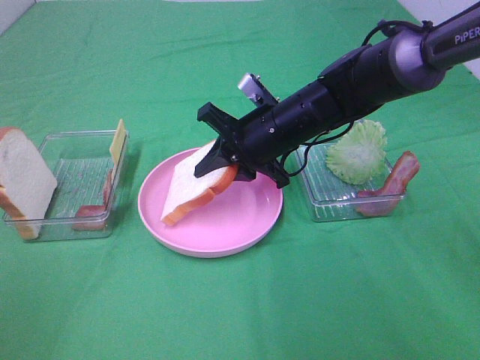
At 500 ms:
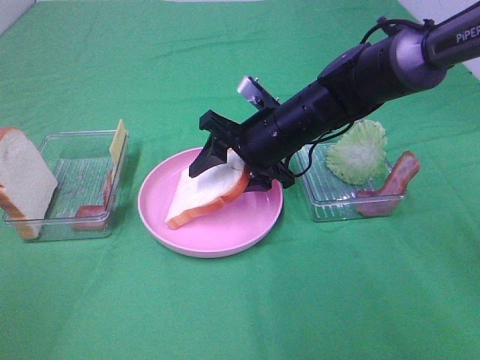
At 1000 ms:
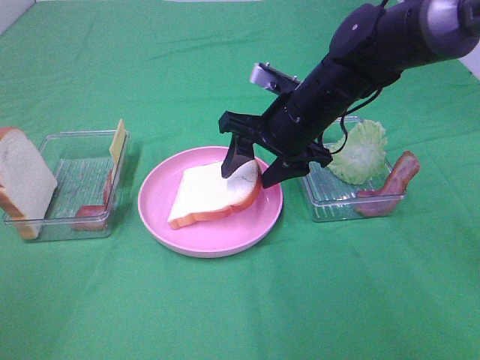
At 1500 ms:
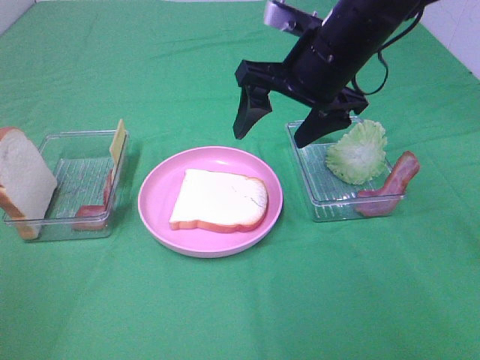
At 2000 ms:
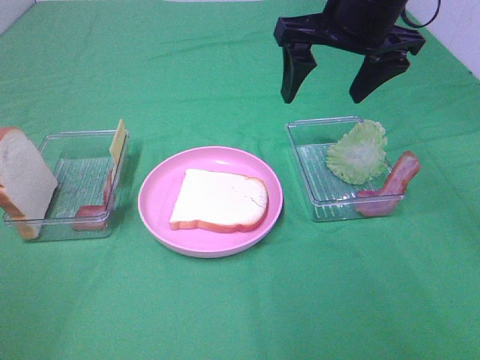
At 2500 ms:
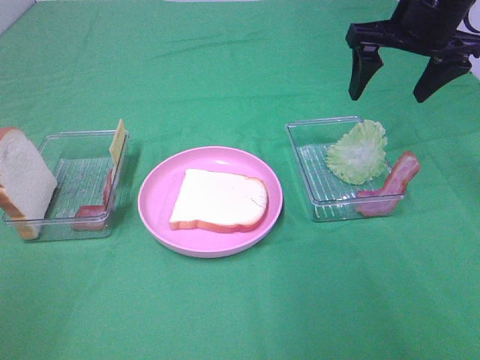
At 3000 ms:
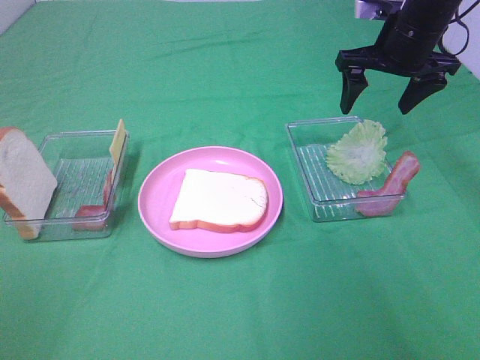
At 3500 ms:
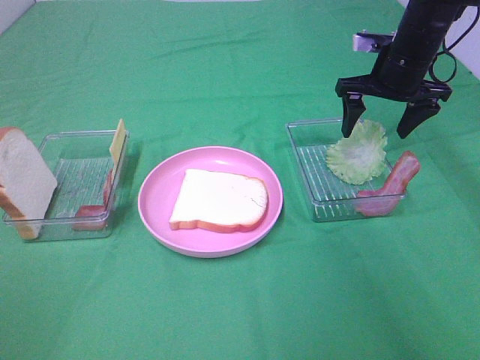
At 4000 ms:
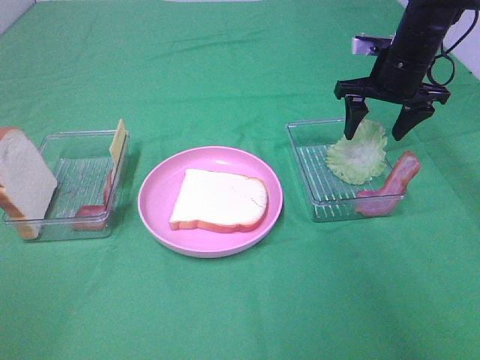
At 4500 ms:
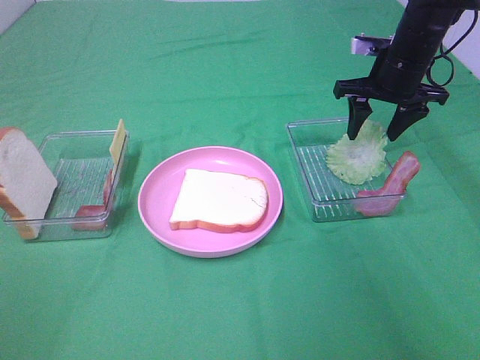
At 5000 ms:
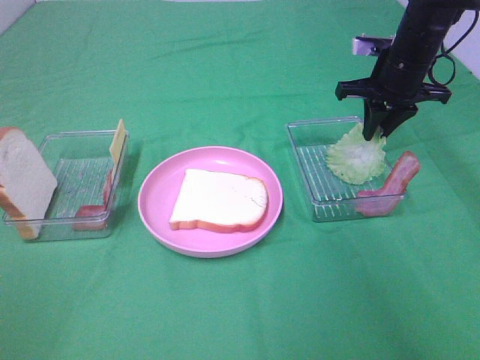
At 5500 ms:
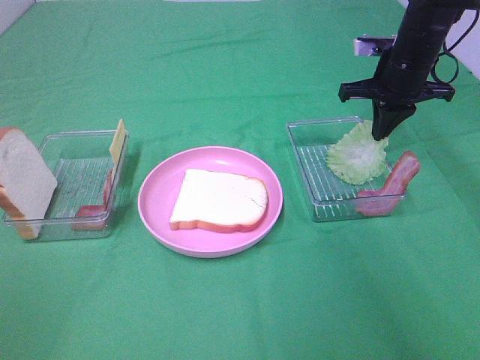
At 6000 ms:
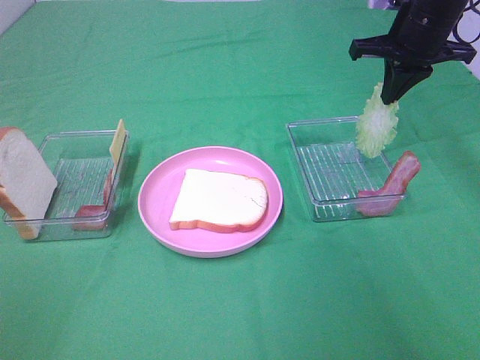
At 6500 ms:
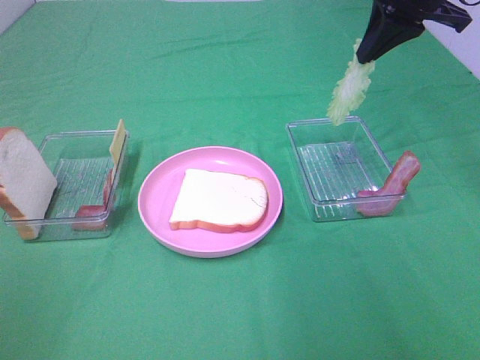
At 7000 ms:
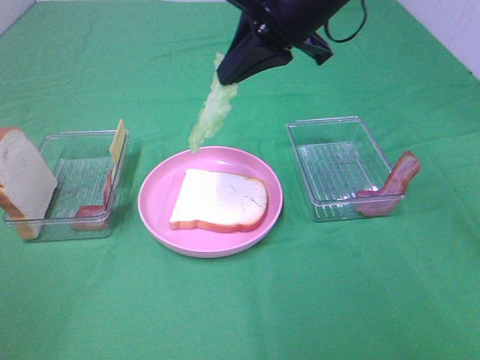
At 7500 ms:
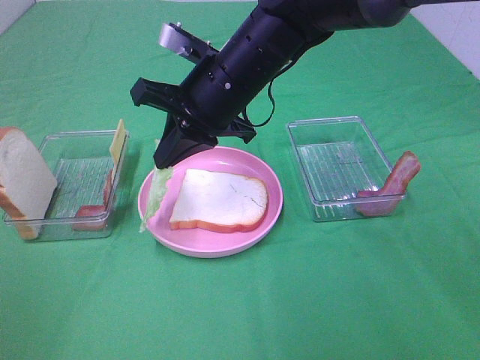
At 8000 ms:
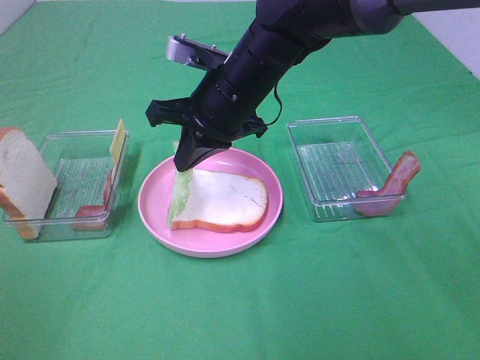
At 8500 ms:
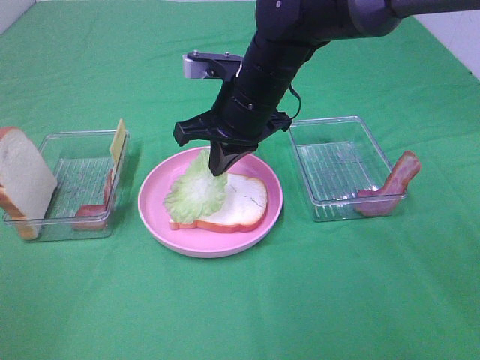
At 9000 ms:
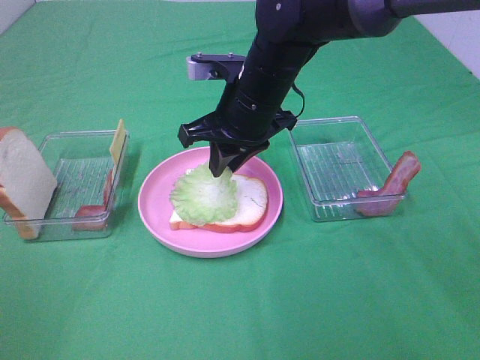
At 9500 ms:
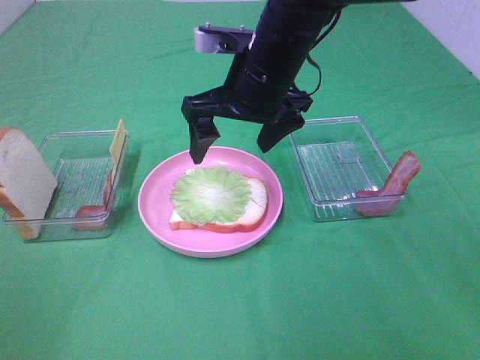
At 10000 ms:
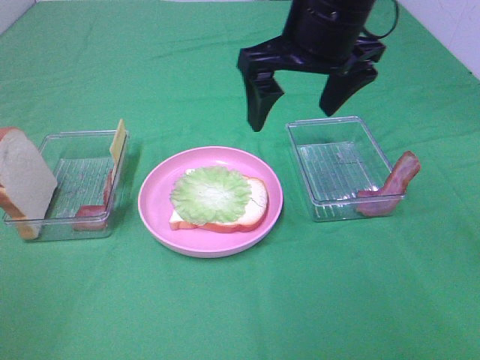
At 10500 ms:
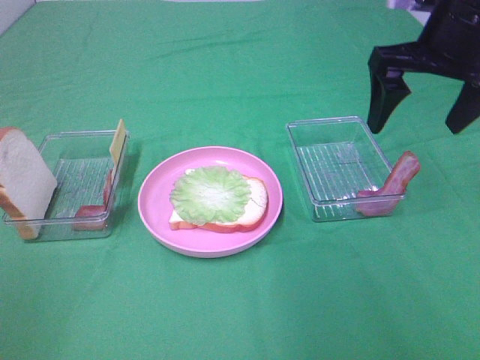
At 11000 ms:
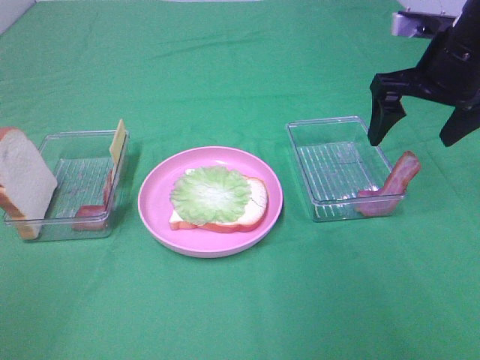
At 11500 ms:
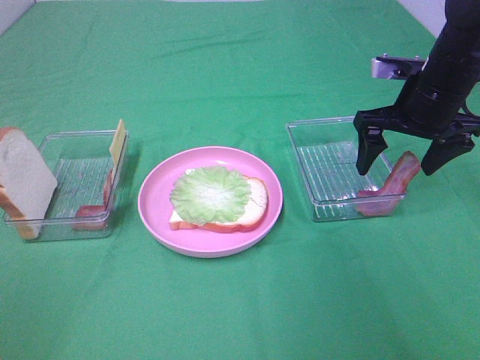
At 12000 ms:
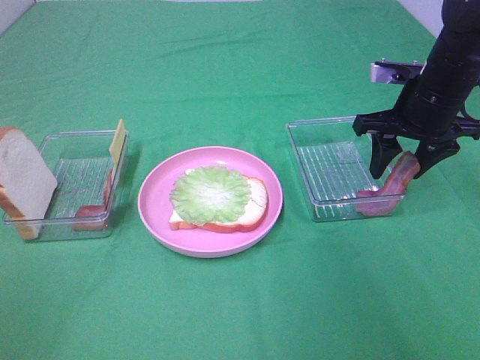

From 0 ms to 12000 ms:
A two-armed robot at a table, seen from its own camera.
Task of the whole recording: Make sandwiches.
Step, from 1500 ms to 5500 ms: Right hand:grab the lettuce slice.
Step, from 6000 ms to 9500 ms: Right hand:place the lettuce slice on the bread slice.
From 0 ms to 2000 ms: The right gripper moves upward, roughly 20 cm, and opens.
From 2000 ms to 4000 ms: The right gripper goes about 20 cm downward, forward and to the right.
From 4000 ms to 6000 ms: The right gripper travels upward by about 5 cm, and closes up.
From 6000 ms to 8000 ms: The right gripper is displaced to the left and backward by approximately 25 cm.
From 8000 ms to 10000 ms: The right gripper goes about 15 cm upward and to the right, and opens up.
From 10000 ms to 12000 ms: The right gripper travels to the right and downward by roughly 20 cm, and closes up.

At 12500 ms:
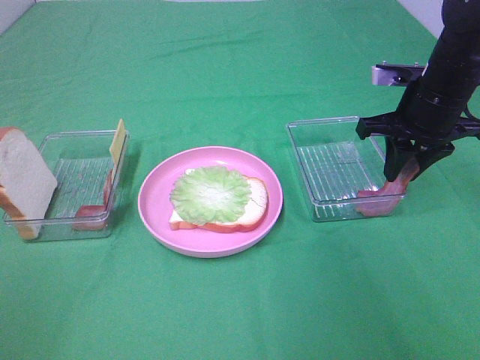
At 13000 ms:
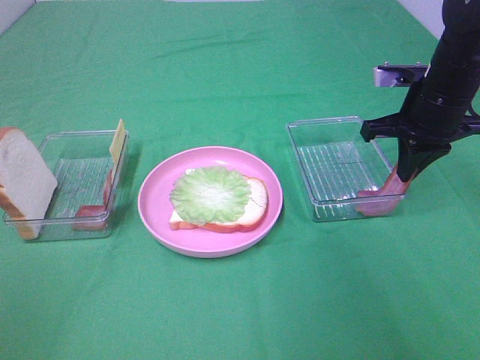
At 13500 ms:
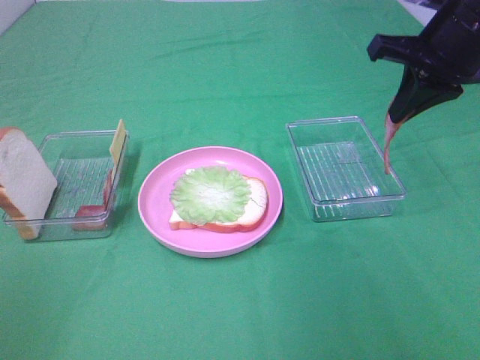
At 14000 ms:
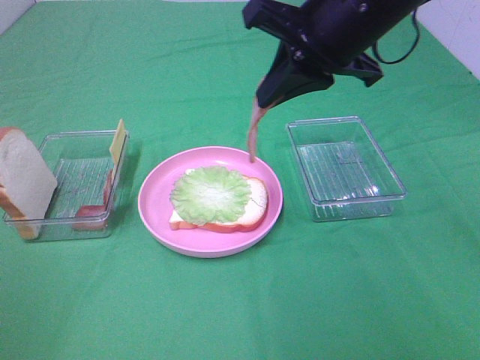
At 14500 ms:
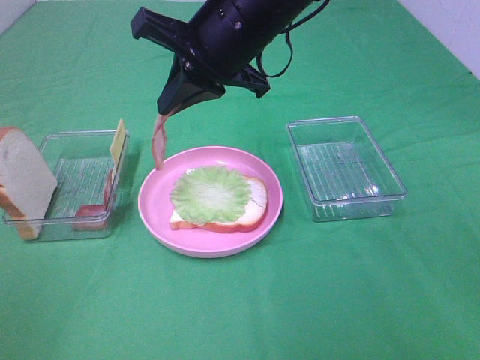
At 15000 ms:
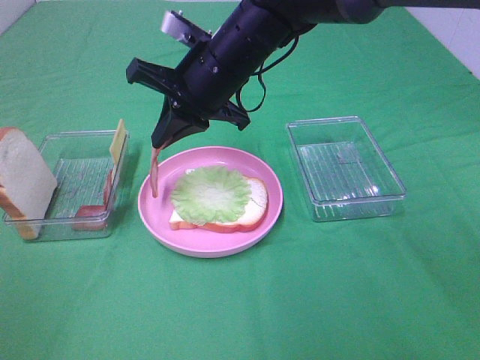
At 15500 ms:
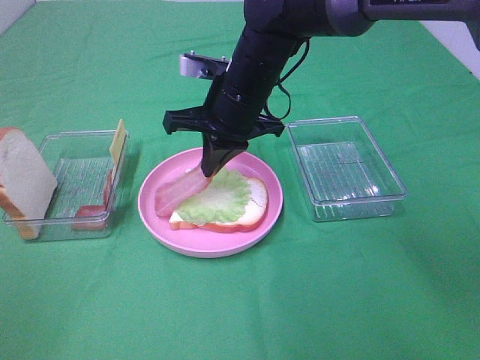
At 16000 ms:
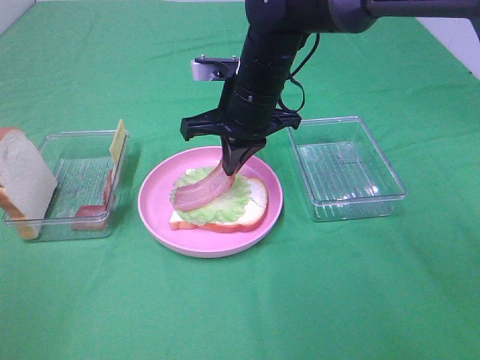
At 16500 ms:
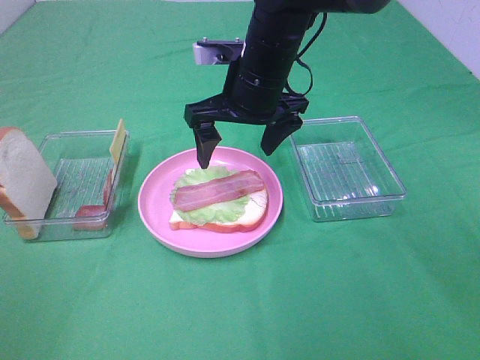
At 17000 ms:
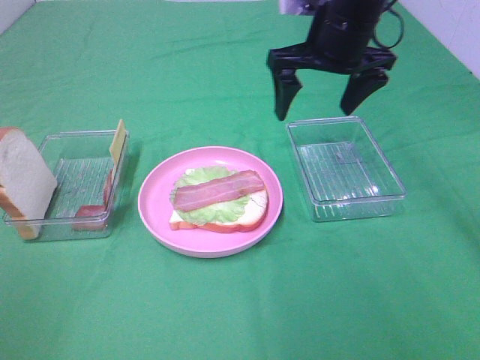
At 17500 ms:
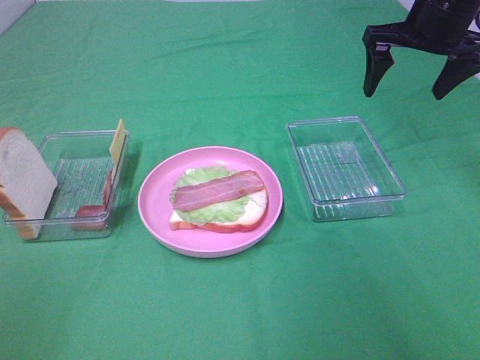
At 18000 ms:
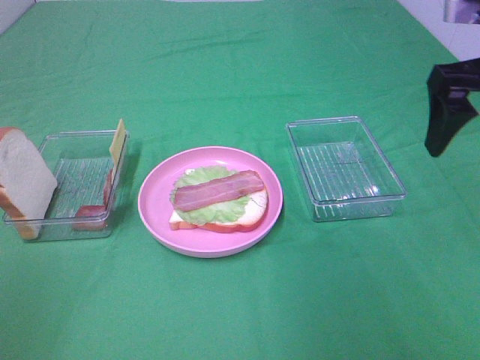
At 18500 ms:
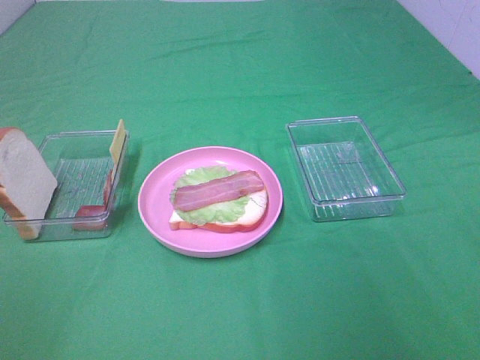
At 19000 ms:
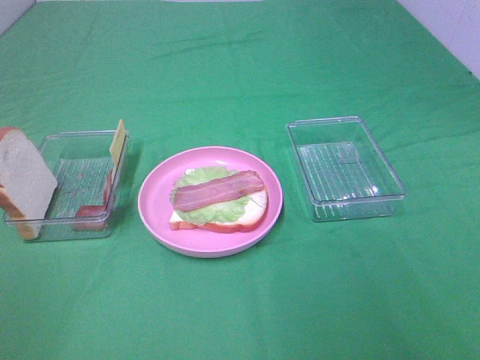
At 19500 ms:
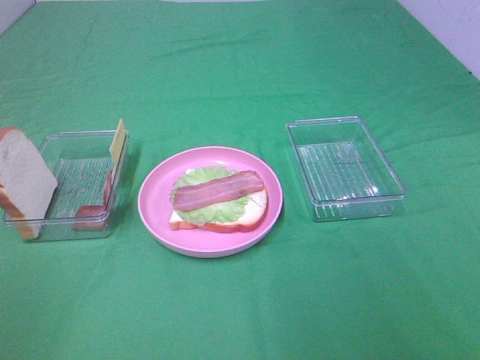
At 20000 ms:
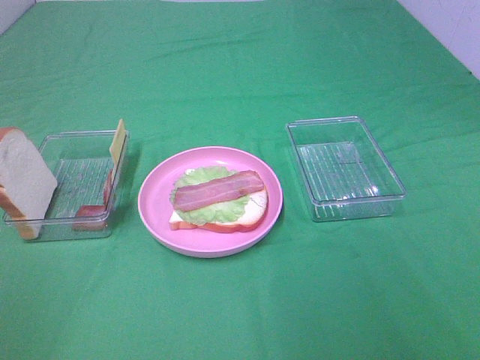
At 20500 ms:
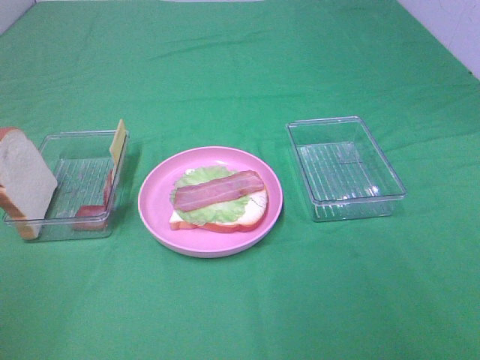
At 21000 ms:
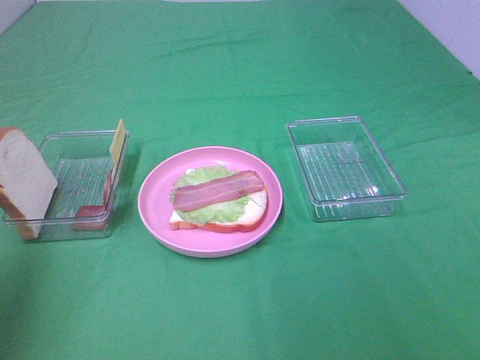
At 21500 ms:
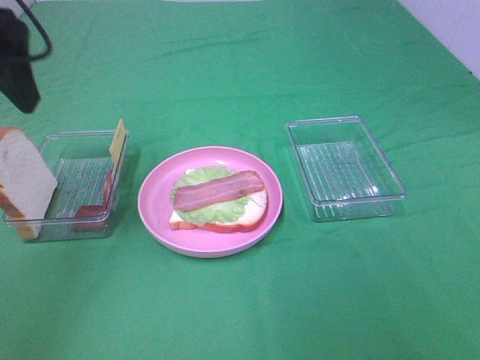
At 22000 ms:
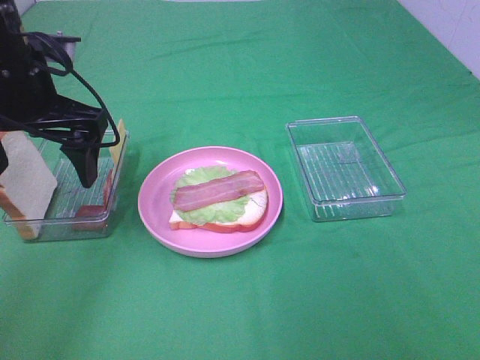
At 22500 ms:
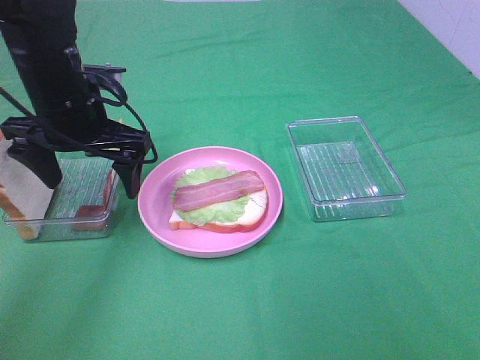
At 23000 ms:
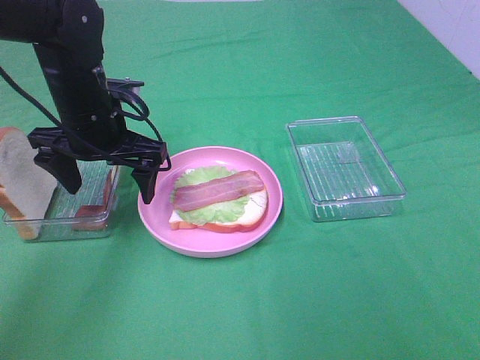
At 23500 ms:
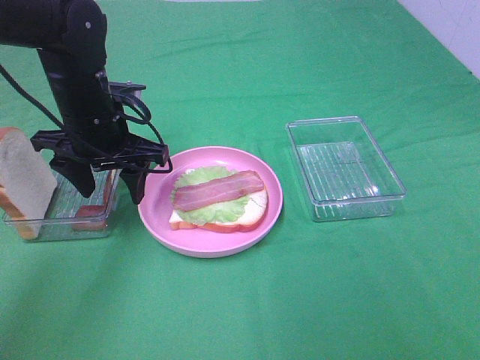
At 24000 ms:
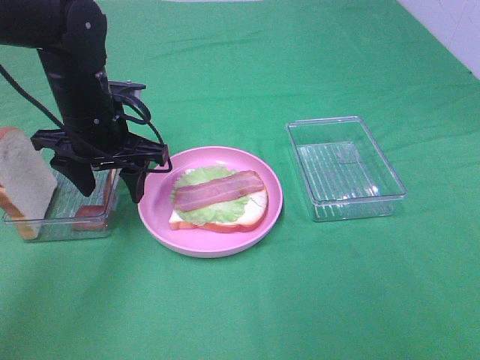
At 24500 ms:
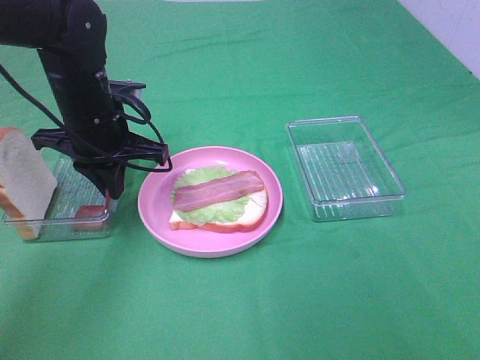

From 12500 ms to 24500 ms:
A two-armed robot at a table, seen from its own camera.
Task of the whole recording: Make sandwiches.
Step, from 13500 ms to 16000 ms: Right hand:place bacon on lettuce slice.
From 12500 ms to 14500 ms: The right gripper is displaced to the left by about 25 cm.
From 14500 ms to 16500 ms: The right gripper travels downward by about 5 cm, and opens its fingers.
From 16500 ms to 18500 ms: The right gripper travels backward and to the right by roughly 35 cm.
From 20500 ms to 22500 ms: The left gripper travels forward and to the right by some 35 cm.
From 22500 ms to 24500 ms: The left gripper closes its fingers.

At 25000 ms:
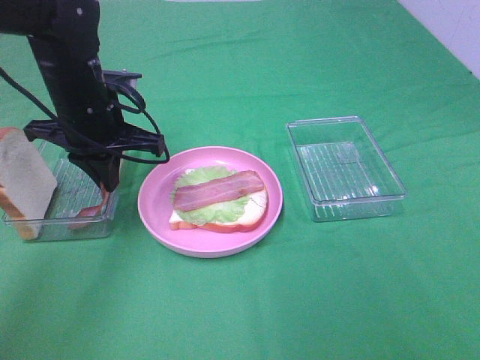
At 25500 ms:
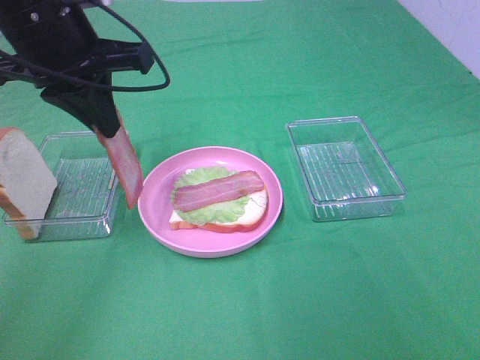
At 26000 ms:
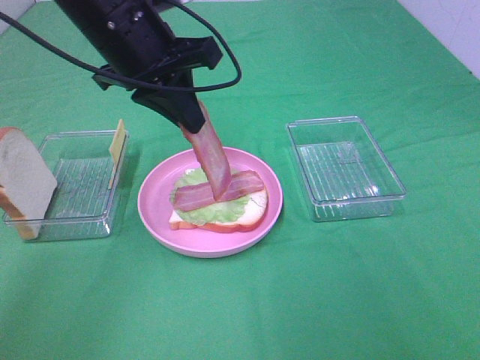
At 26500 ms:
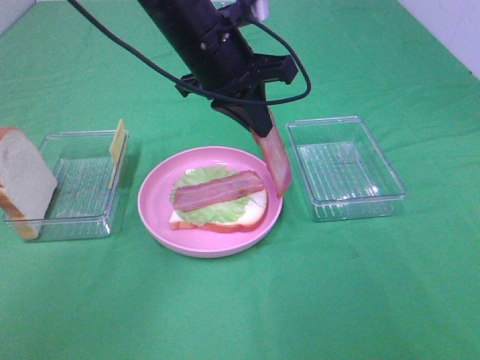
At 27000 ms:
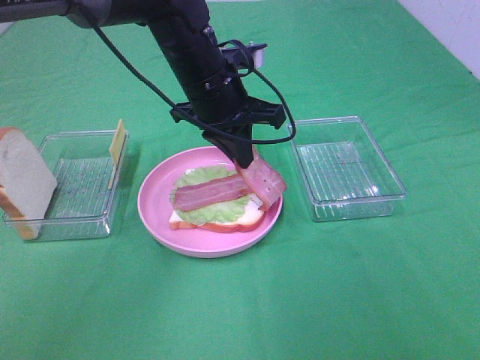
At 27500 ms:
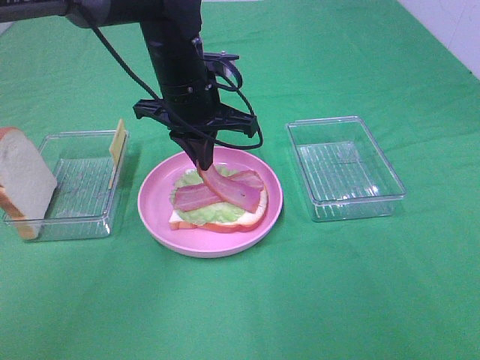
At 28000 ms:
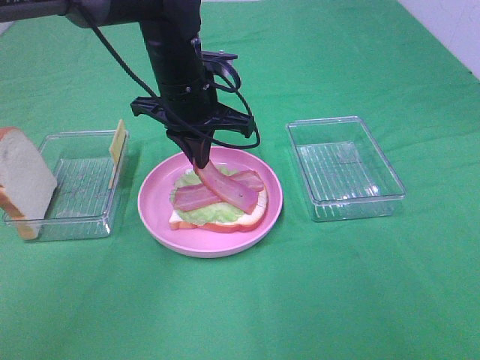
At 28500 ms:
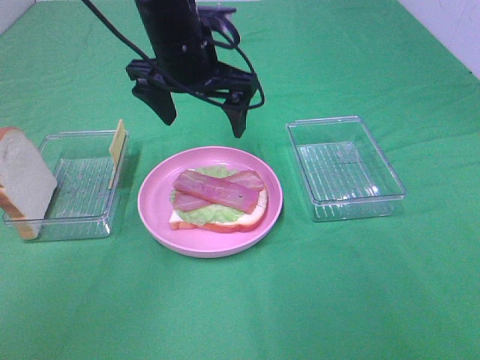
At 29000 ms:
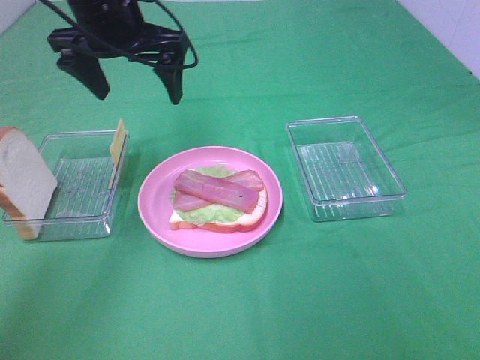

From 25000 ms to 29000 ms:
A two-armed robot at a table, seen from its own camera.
Task of the whole recording: Make sandwiches.
Step, from 25500 ms to 28000 ms: Left hand:place bacon on bacon.
From 25000 ms to 27000 ms: The left gripper shifts roughly 15 cm to the right.
From 27000 ms to 29000 ms: The left gripper heads to the left and upward, covering approximately 15 cm, and opens.
